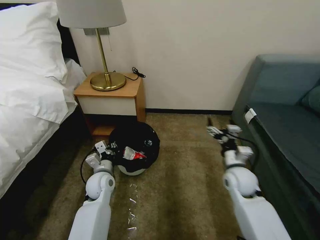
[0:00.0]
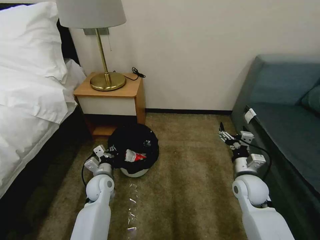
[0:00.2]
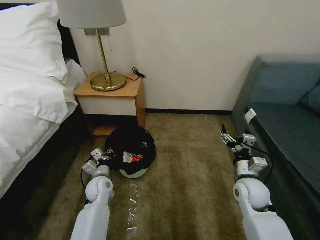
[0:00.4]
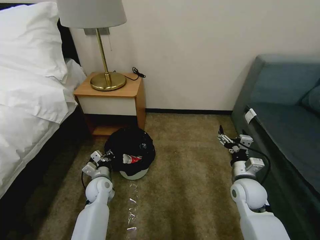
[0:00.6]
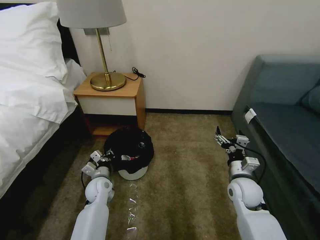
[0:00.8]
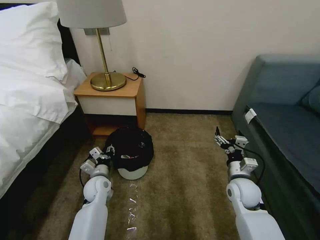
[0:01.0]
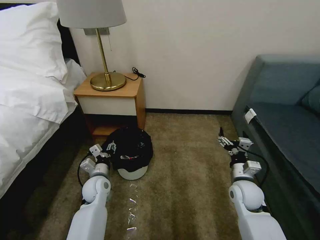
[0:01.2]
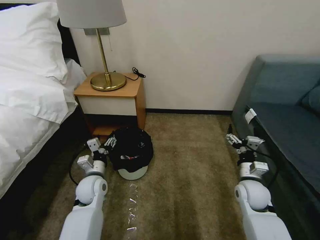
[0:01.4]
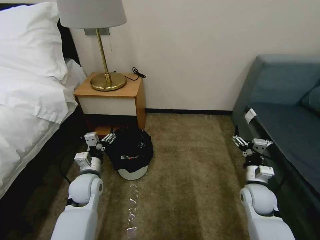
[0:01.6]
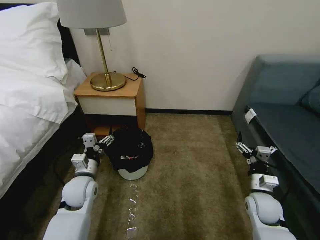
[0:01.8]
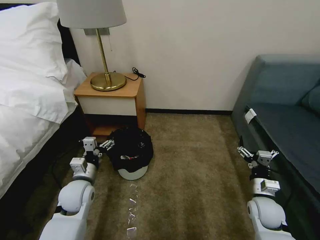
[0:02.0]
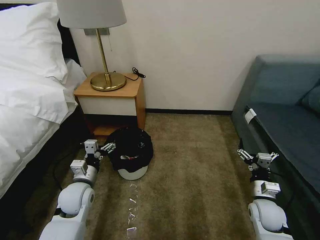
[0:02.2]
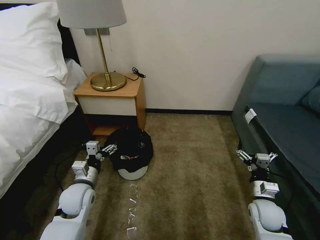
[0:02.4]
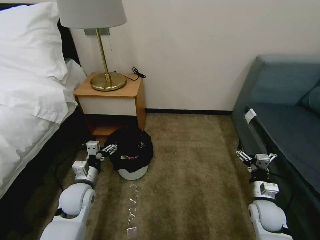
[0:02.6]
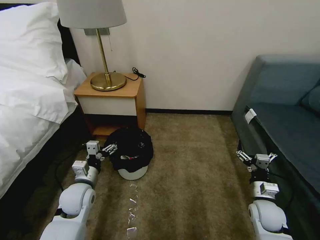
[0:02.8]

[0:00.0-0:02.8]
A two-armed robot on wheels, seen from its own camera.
Task of the whole recording: Pick up the trash bin, then pick up the garbage on the floor and place it into the trash bin.
0:00.0 to 0:01.4: The left gripper opens, while the right gripper shifts by approximately 5 cm.
0:01.4 to 0:02.8: The right gripper moves backward, some 5 cm.

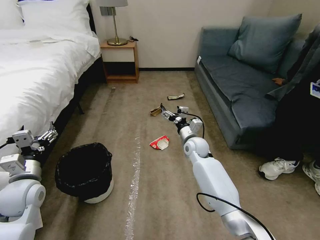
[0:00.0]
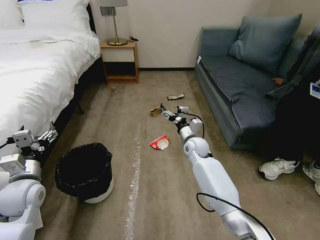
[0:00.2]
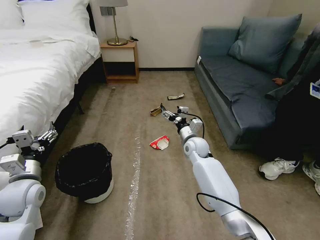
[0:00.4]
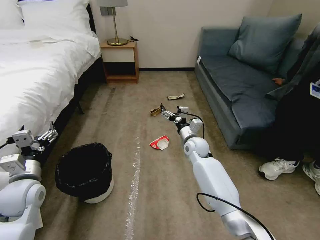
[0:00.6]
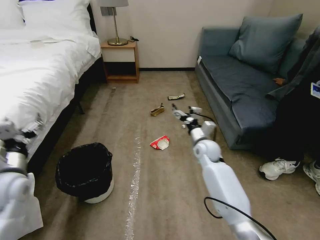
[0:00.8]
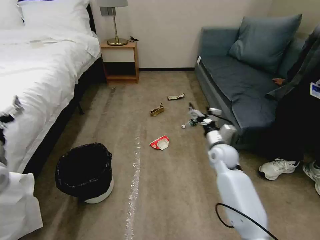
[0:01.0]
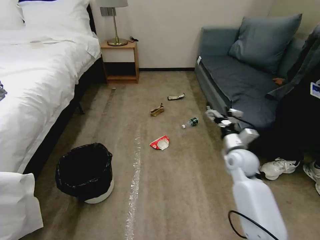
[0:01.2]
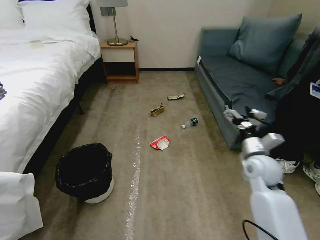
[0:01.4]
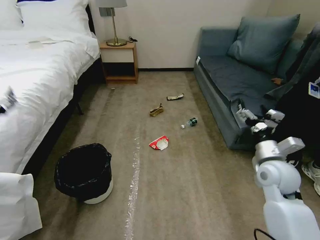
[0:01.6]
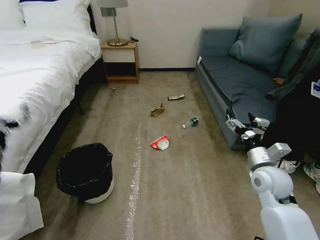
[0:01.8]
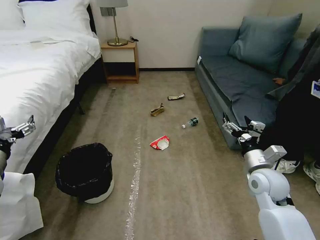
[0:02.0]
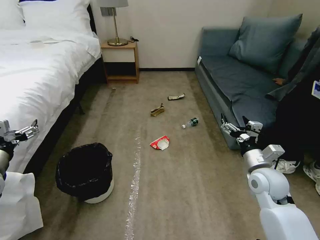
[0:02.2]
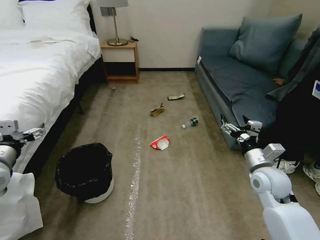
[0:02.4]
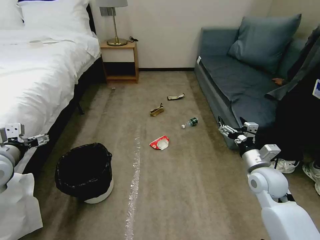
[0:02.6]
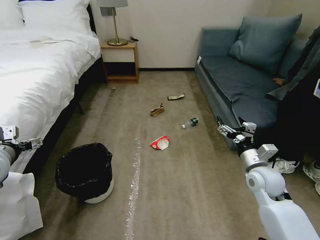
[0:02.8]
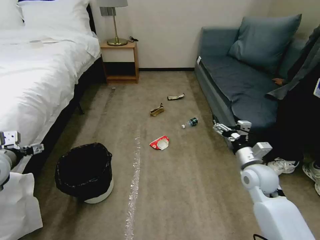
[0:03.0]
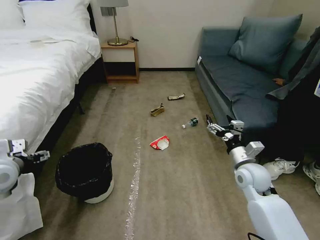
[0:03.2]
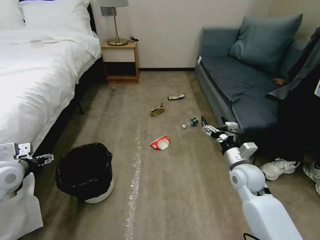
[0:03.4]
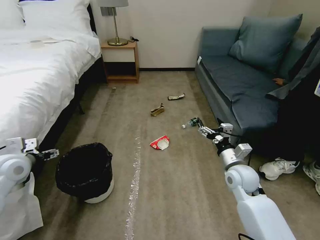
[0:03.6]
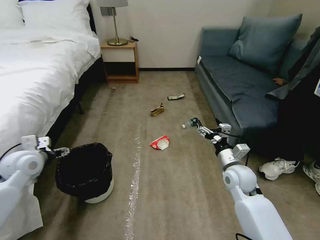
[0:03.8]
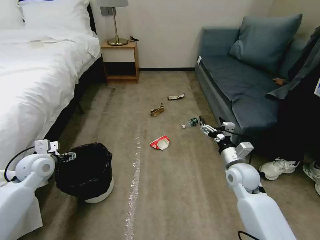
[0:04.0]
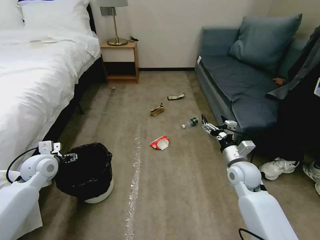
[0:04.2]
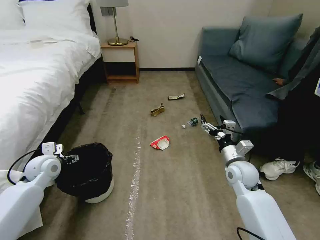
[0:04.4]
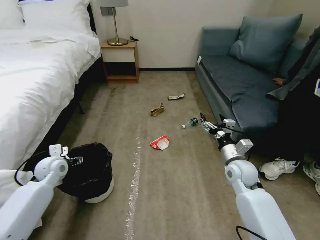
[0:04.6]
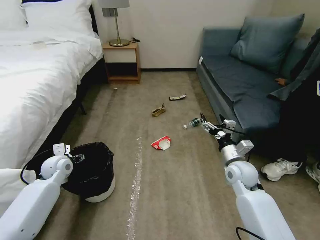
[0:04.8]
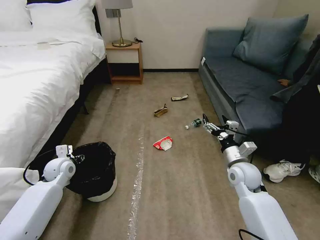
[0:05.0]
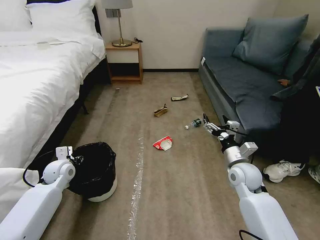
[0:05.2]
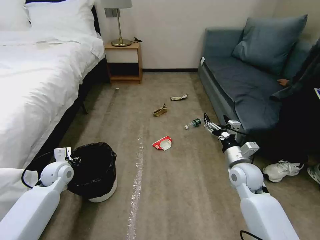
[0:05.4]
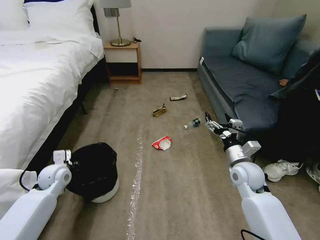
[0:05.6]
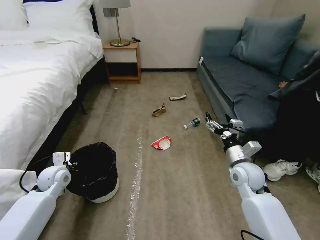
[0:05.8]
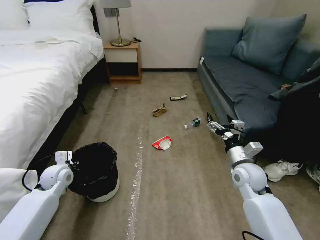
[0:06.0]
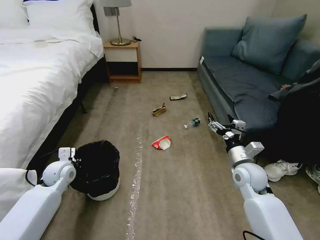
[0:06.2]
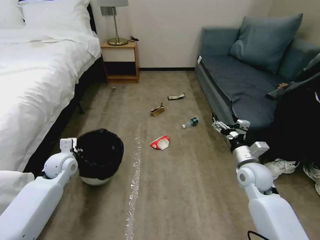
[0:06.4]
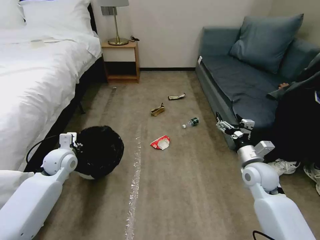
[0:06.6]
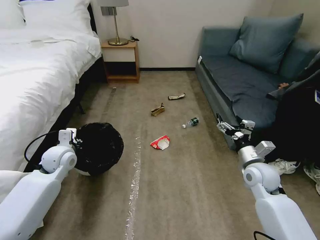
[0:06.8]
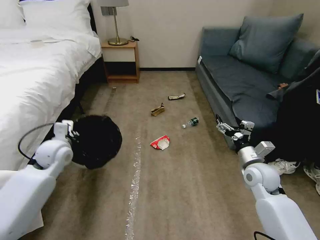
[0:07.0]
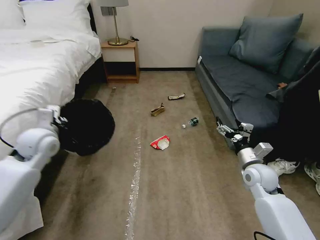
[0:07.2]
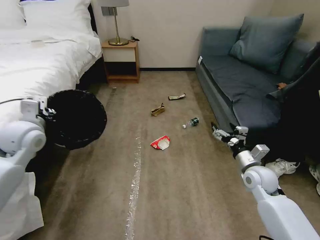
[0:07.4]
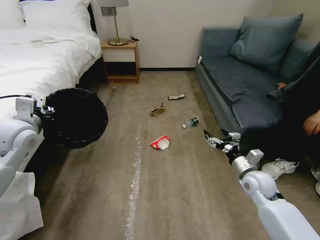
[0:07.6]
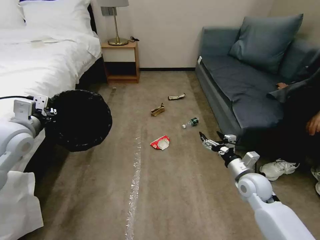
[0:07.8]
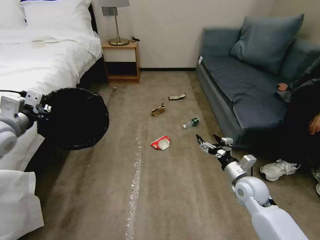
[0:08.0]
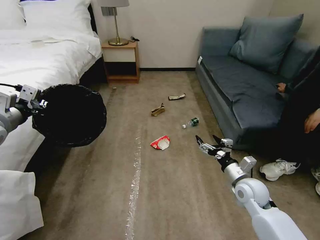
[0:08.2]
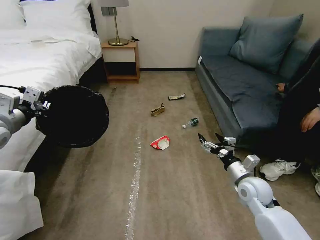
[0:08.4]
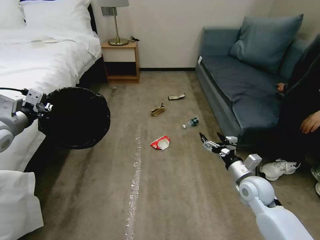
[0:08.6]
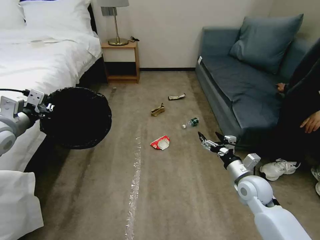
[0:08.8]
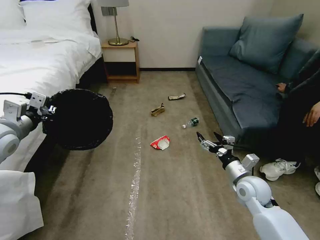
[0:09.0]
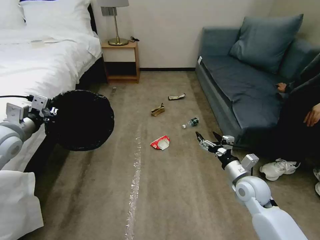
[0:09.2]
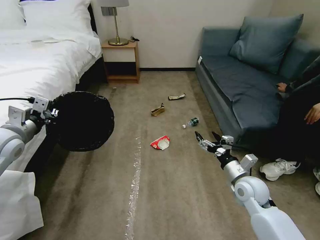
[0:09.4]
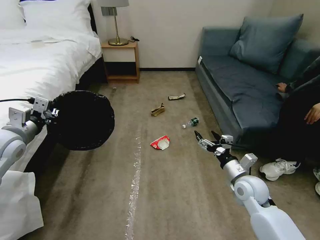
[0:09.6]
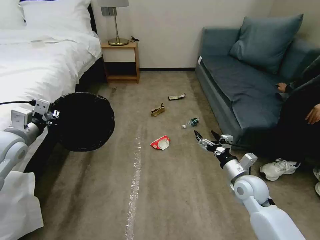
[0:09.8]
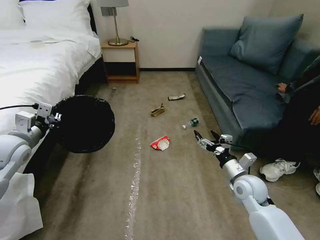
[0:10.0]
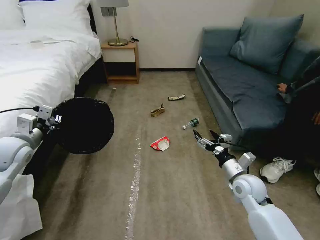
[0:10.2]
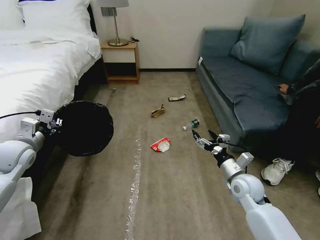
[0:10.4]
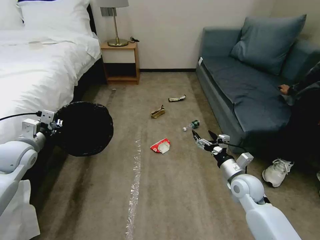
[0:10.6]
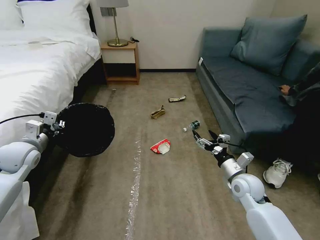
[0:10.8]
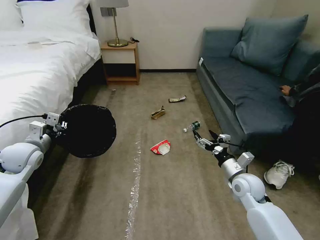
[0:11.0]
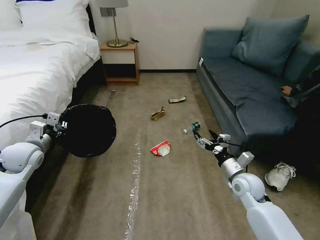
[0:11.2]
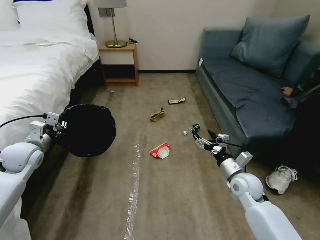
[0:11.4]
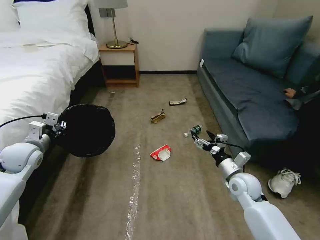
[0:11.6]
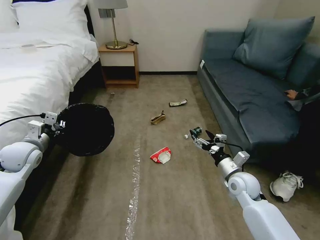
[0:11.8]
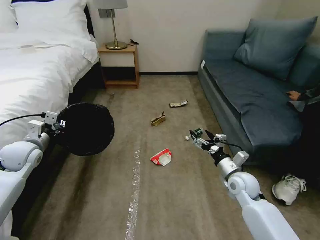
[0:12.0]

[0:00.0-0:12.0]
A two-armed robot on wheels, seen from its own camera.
Task of the whole recording: Pick up the trash bin, then pick up the garbage on the floor and place it into the trash bin.
0:01.6 to 0:03.0: The right gripper travels downward by approximately 5 cm.
0:03.0 to 0:04.4: The left gripper travels downward and forward by about 15 cm. The right gripper ends up some 5 cm from where it was.
0:04.4 to 0:06.0: The left gripper shifts about 5 cm downward, and closes up.
0:06.0 to 0:07.6: The right gripper changes place by roughly 5 cm. The left gripper is displaced upward by approximately 20 cm.
0:09.0 to 0:10.4: The left gripper shifts some 10 cm downward.
0:10.4 to 0:12.0: The grippers move only a little.

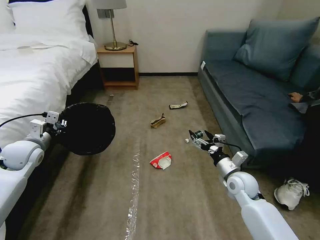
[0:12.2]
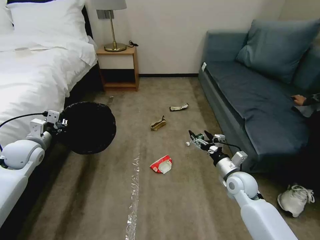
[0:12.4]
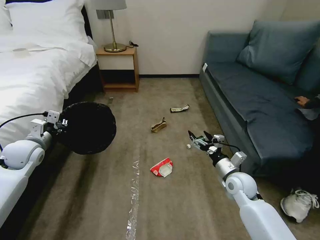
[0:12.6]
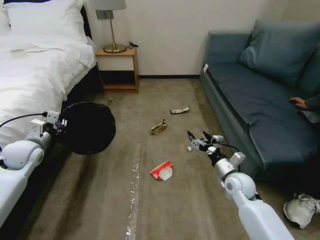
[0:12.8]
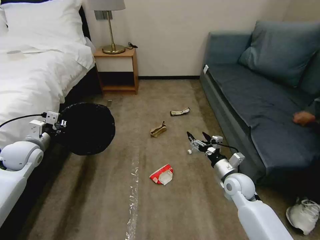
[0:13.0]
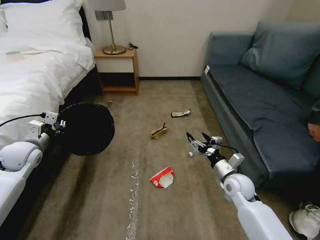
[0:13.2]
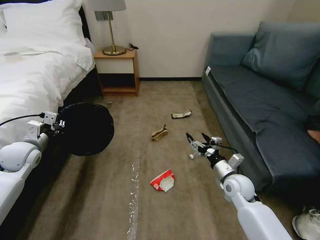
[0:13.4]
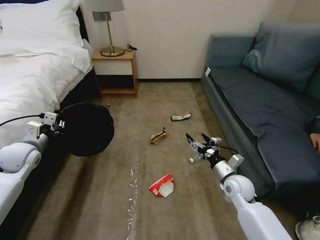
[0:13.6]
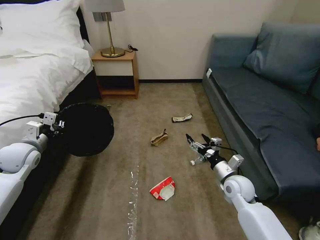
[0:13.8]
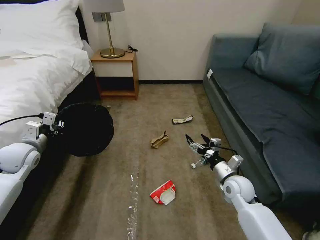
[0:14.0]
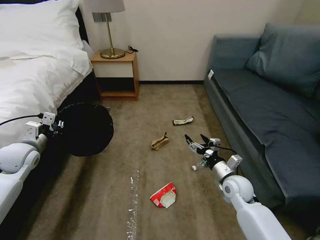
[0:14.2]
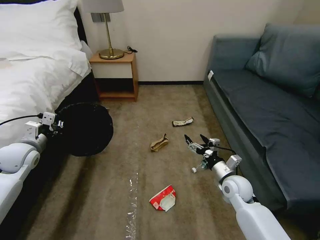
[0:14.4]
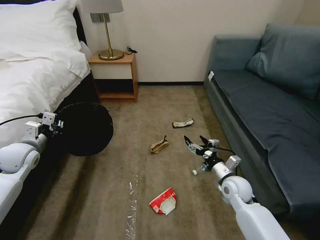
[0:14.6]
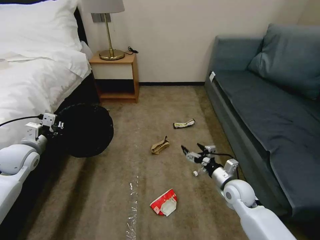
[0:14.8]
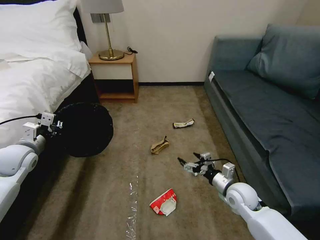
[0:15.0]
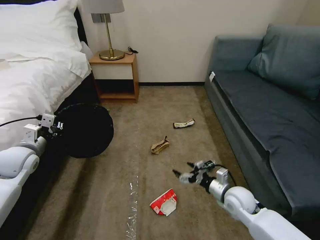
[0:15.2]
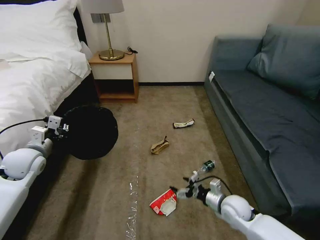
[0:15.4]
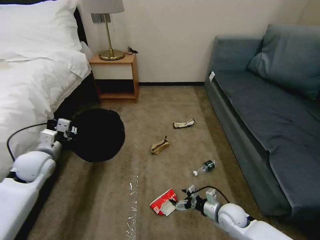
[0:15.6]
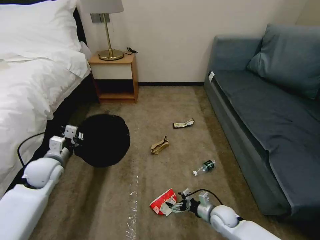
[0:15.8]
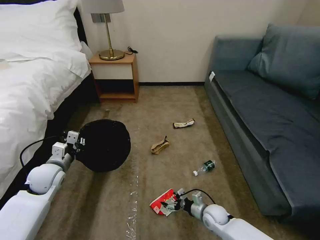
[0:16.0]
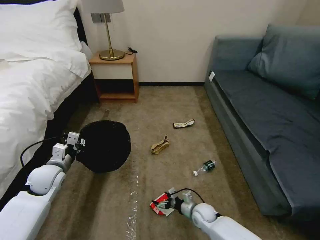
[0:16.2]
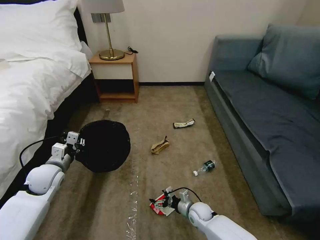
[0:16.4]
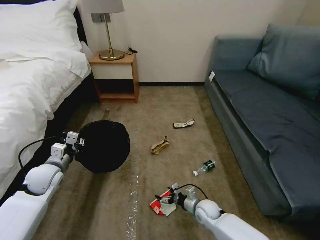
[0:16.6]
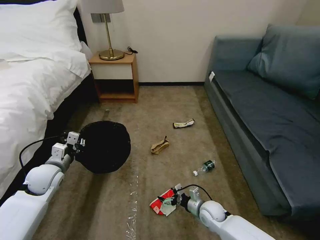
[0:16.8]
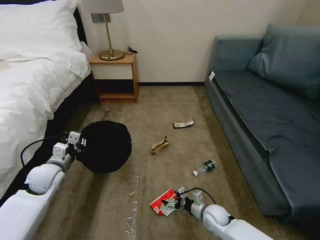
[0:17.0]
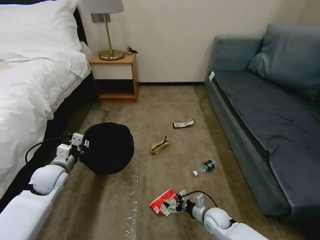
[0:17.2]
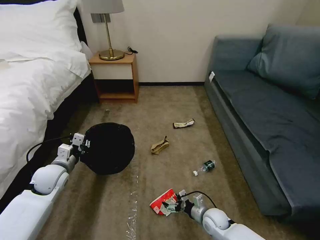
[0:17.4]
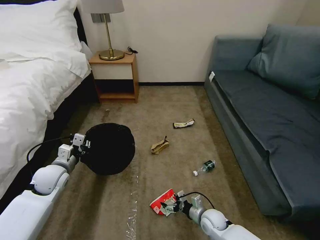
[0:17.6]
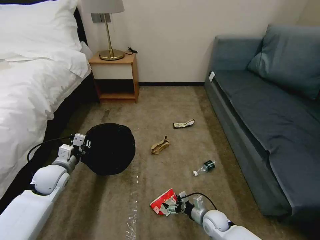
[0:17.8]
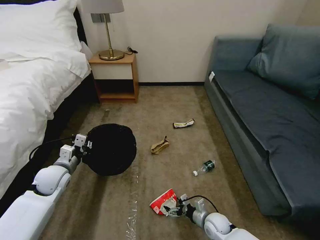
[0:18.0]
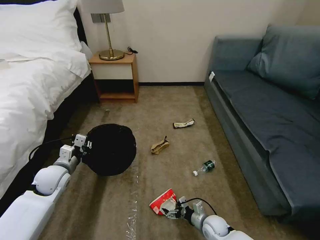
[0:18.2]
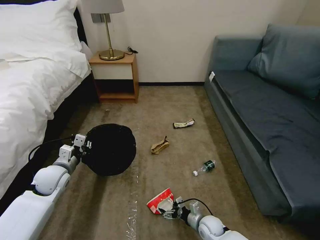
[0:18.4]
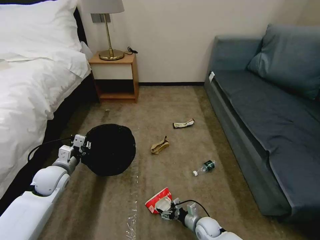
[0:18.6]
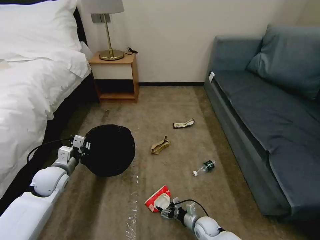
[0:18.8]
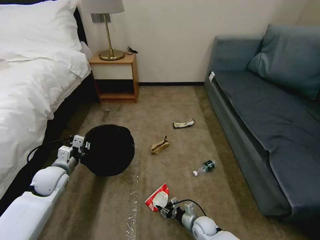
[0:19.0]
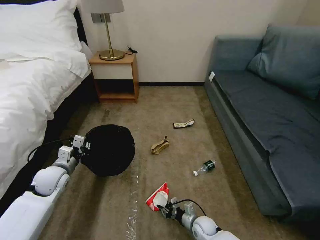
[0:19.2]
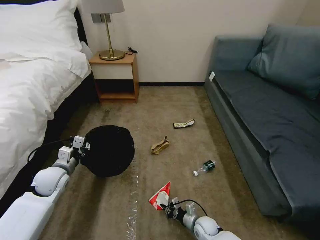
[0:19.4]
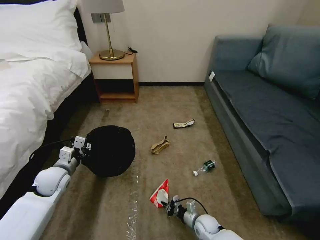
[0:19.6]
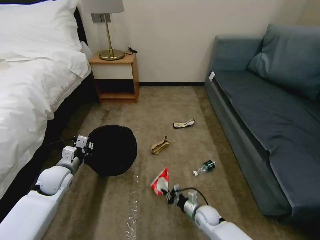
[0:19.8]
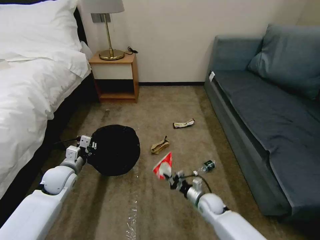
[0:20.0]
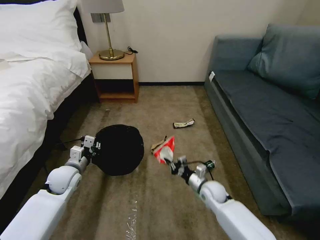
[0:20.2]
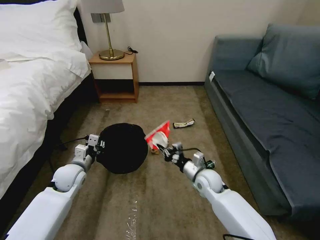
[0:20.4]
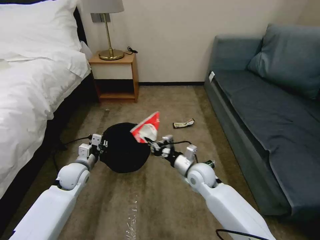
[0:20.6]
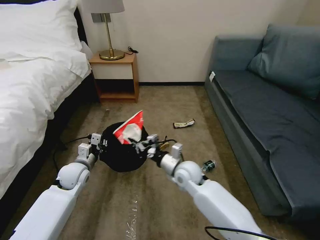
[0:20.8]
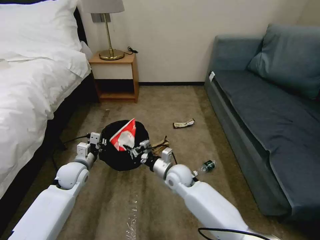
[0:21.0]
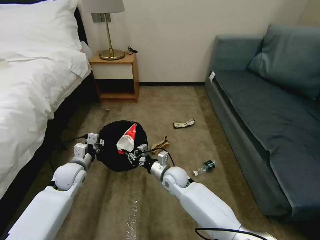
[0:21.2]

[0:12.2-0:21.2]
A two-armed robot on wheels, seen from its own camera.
Task of the whole recording: Pick up the trash bin, then pick up the garbage on the floor and place it into the trash bin.
0:15.2 to 0:16.6: The right gripper heads downward and to the left, covering roughly 15 cm; the left gripper is displaced downward and to the right by some 10 cm.
0:16.6 to 0:18.2: The right gripper moves backward, about 5 cm.
0:18.2 to 0:19.8: The right gripper closes.
0:19.8 to 0:21.2: The right gripper goes approximately 25 cm upward, to the left and forward.
